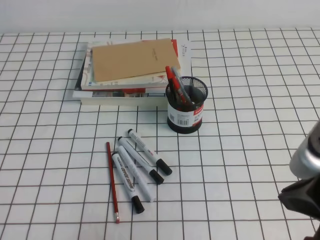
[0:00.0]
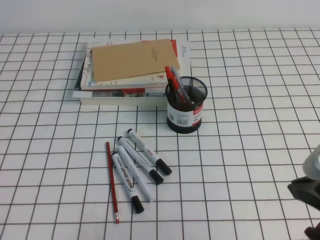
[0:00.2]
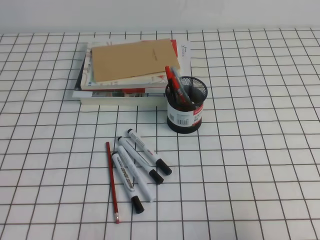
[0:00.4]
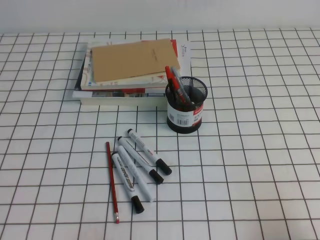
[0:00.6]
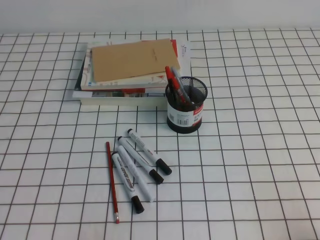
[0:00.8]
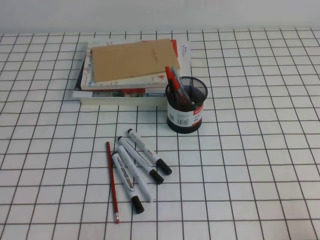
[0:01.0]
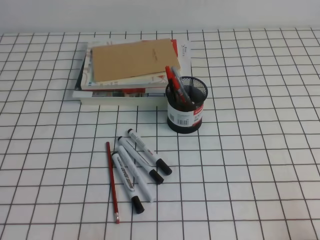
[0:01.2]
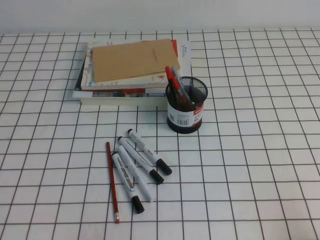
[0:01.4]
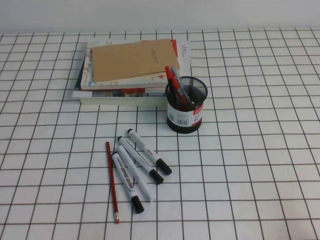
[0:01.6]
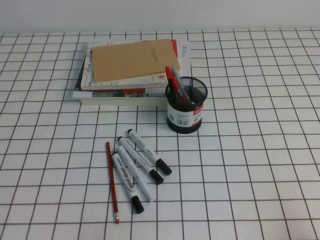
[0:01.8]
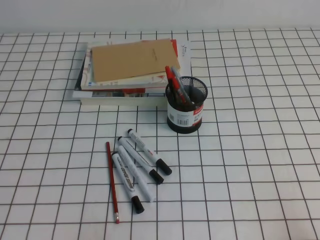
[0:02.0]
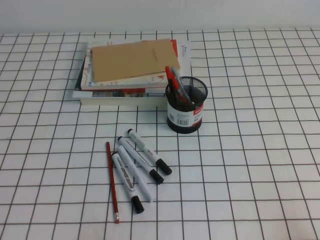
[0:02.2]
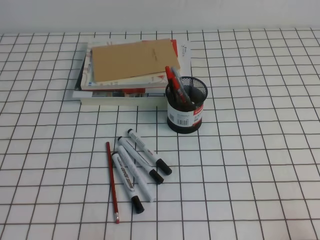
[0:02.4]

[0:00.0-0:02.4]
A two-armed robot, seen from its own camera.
Step, 0:00.0 to 0:02.4: Pick up the pen from the pen holder.
0:00.0 to 0:01.2: The right gripper heads downward and to the right, covering approximately 20 cm.
